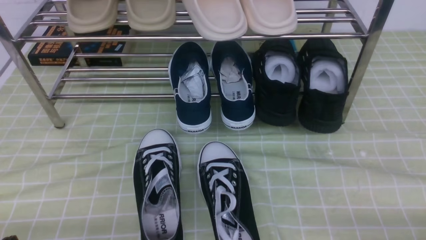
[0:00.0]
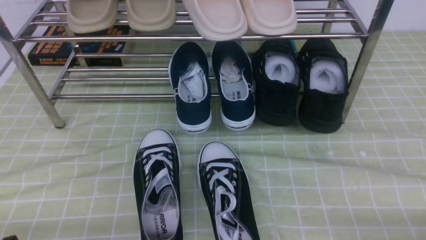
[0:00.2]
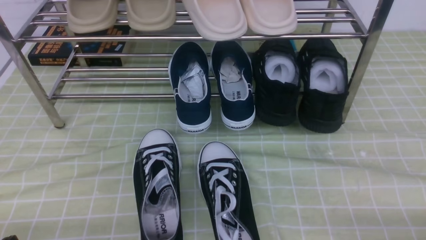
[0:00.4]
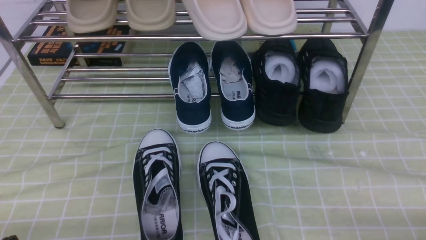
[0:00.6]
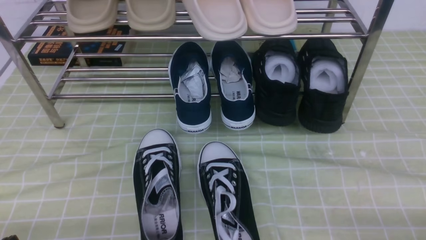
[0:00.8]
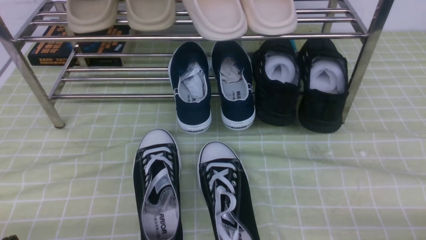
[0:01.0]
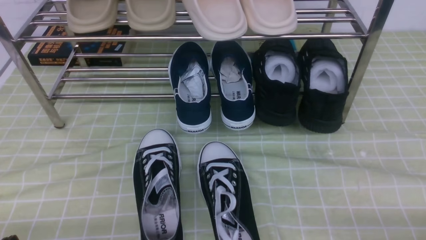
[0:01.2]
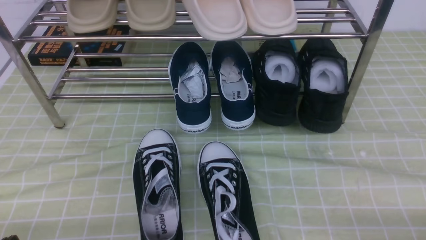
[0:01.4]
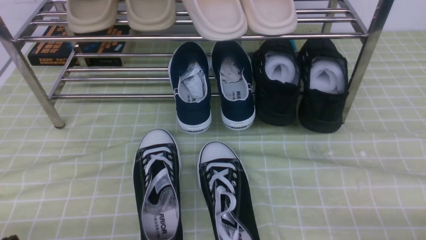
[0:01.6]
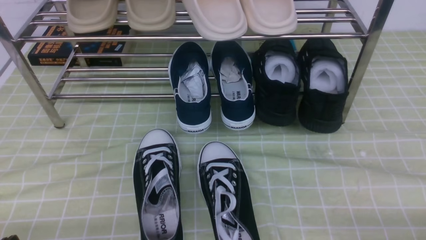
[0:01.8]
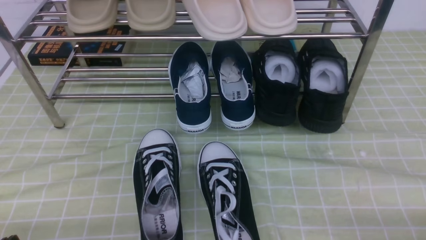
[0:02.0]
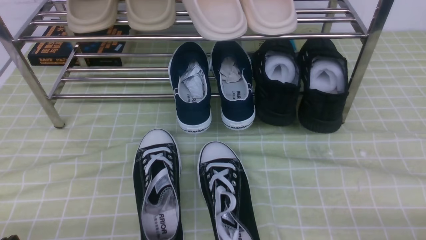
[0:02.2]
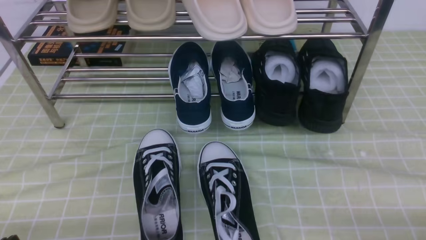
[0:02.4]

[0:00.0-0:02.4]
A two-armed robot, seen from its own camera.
0:00.0 to 0:02.4: Neither gripper changes place.

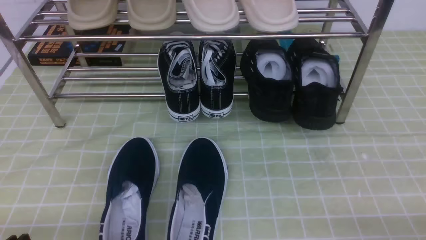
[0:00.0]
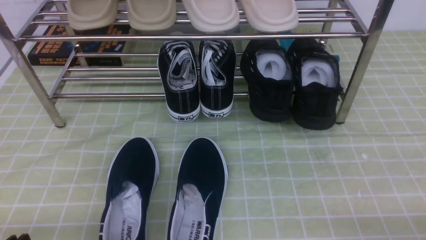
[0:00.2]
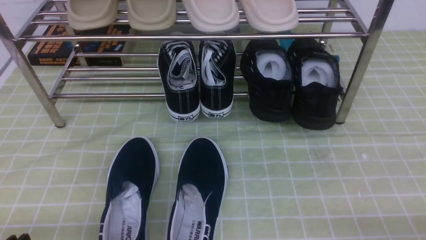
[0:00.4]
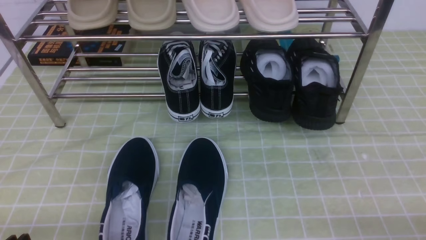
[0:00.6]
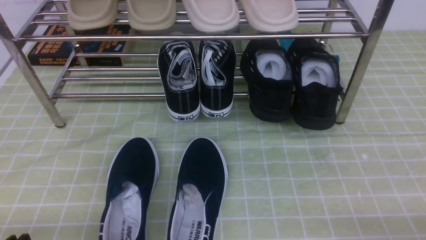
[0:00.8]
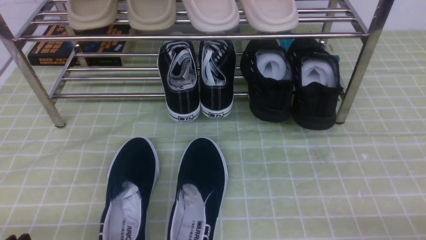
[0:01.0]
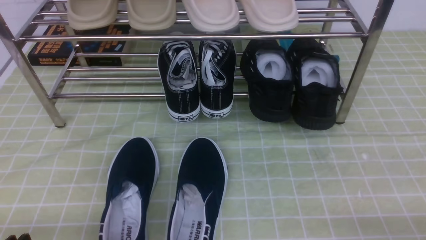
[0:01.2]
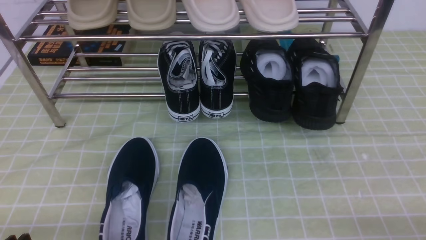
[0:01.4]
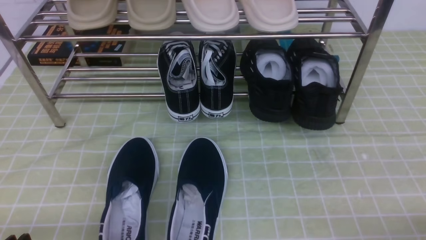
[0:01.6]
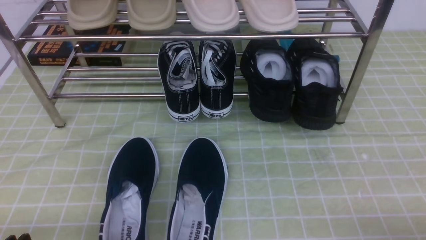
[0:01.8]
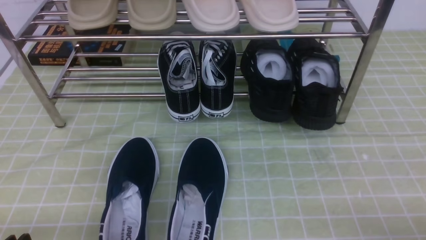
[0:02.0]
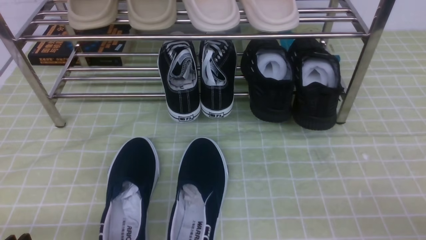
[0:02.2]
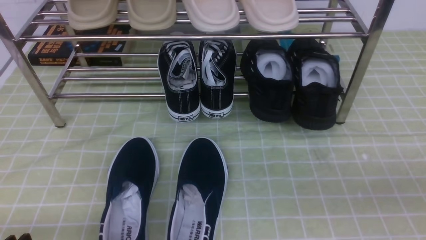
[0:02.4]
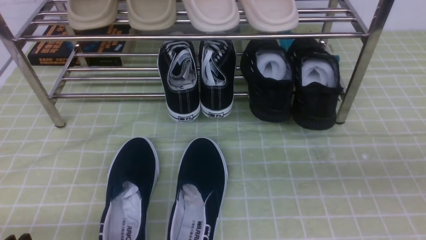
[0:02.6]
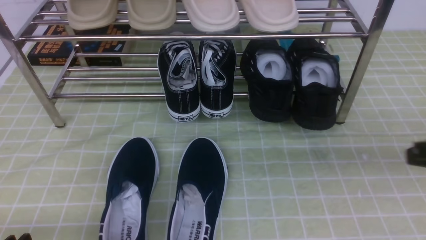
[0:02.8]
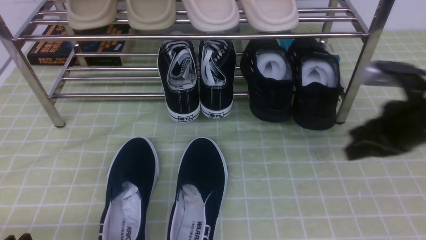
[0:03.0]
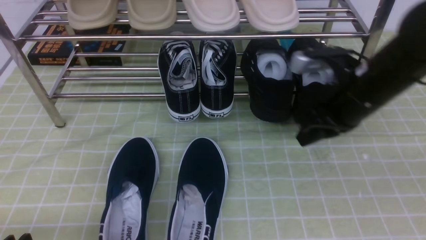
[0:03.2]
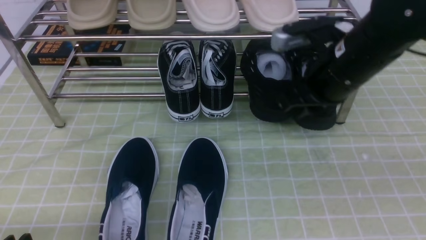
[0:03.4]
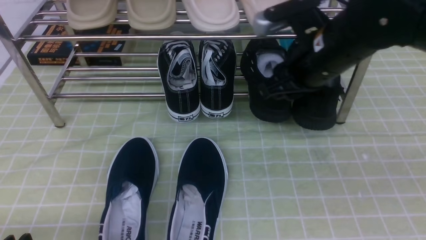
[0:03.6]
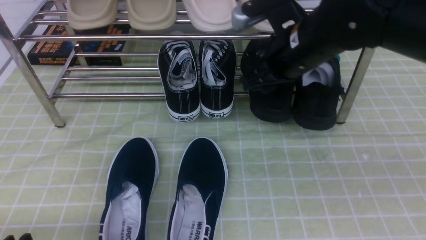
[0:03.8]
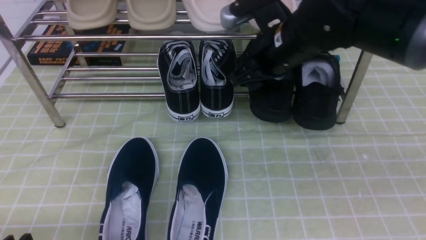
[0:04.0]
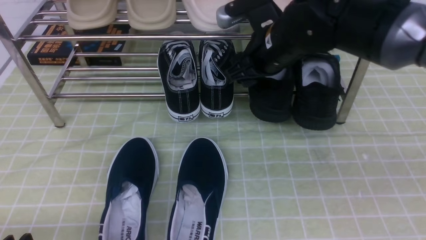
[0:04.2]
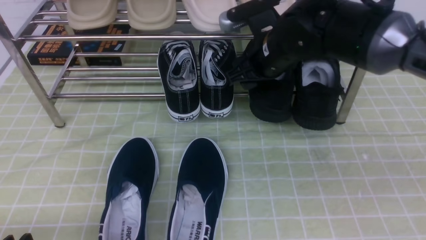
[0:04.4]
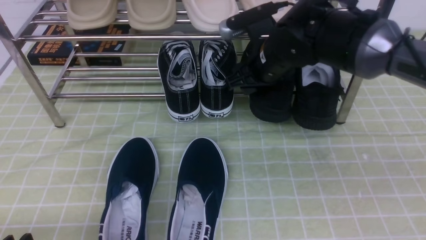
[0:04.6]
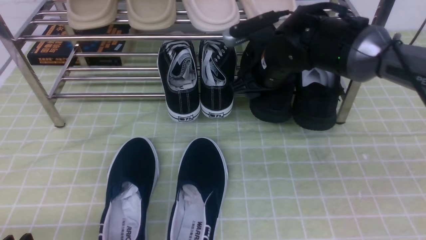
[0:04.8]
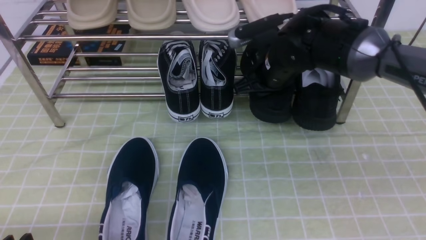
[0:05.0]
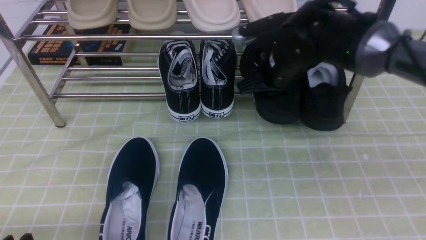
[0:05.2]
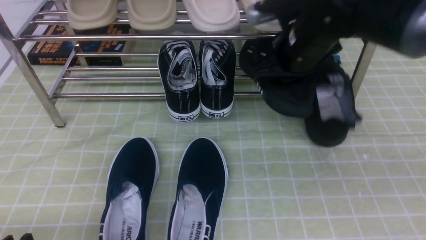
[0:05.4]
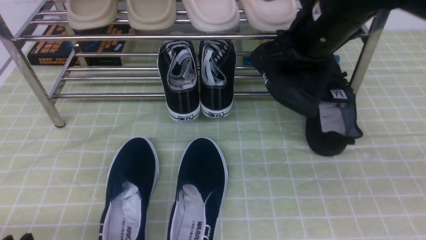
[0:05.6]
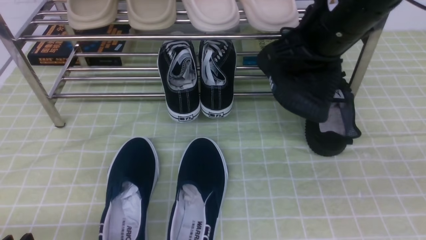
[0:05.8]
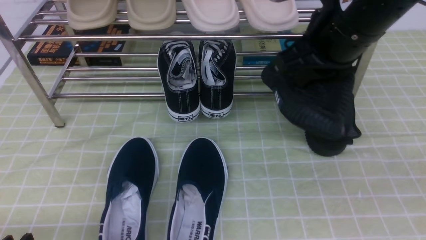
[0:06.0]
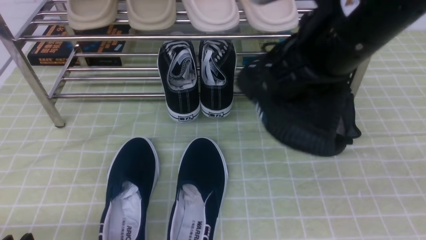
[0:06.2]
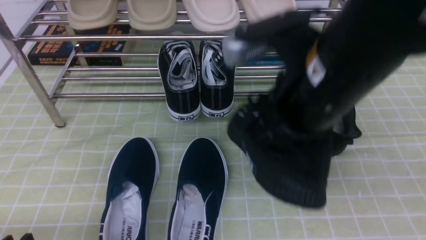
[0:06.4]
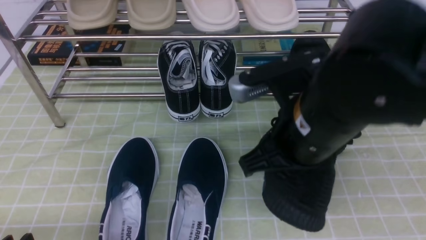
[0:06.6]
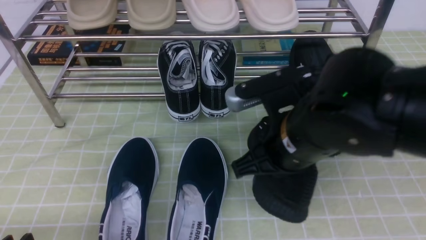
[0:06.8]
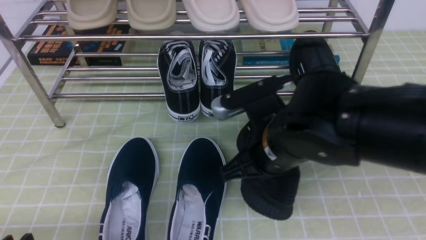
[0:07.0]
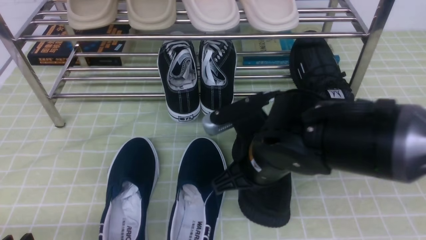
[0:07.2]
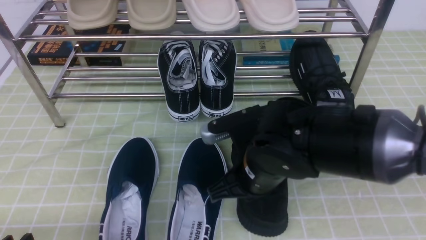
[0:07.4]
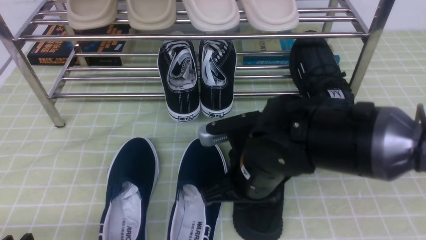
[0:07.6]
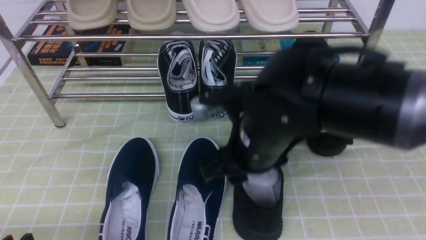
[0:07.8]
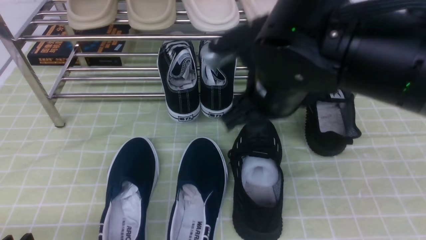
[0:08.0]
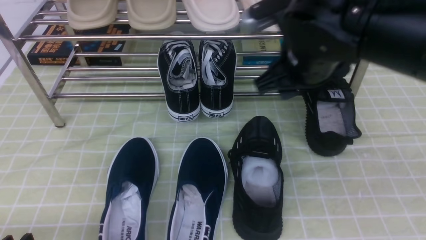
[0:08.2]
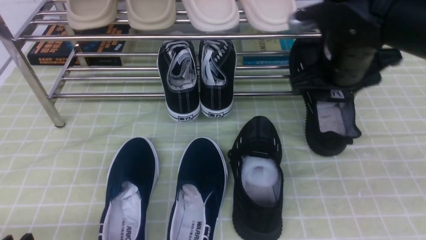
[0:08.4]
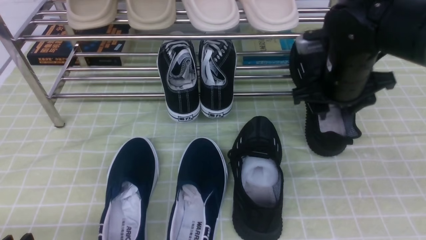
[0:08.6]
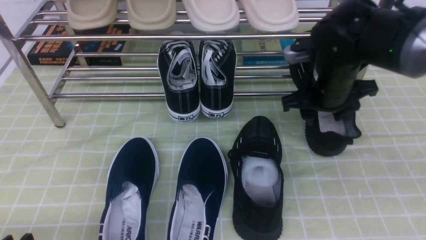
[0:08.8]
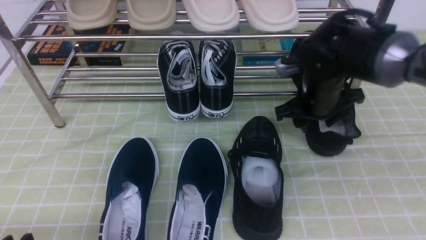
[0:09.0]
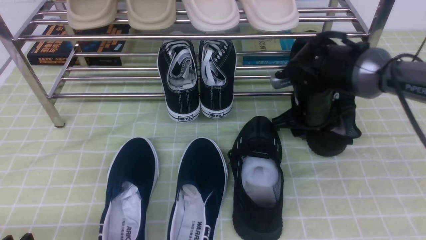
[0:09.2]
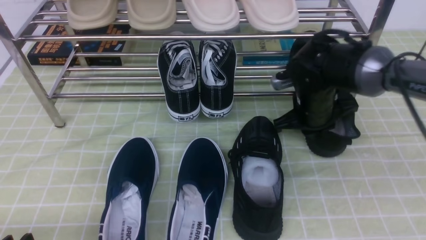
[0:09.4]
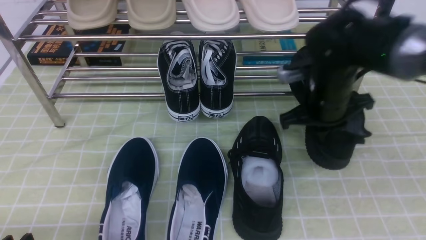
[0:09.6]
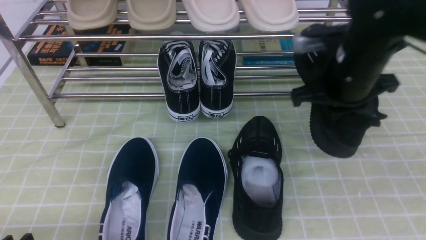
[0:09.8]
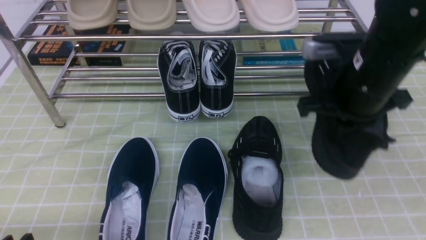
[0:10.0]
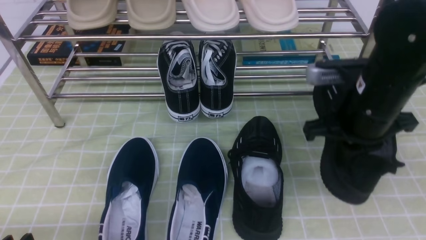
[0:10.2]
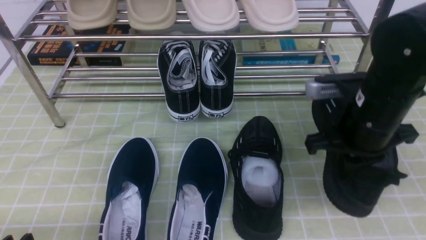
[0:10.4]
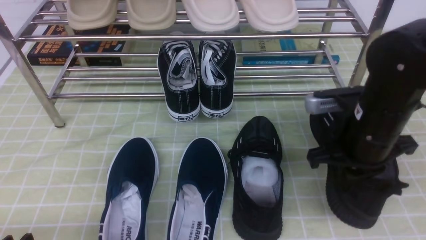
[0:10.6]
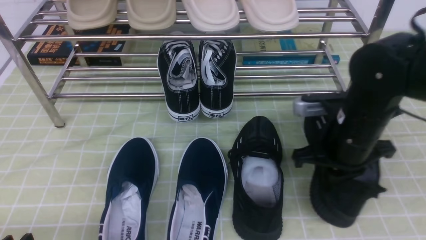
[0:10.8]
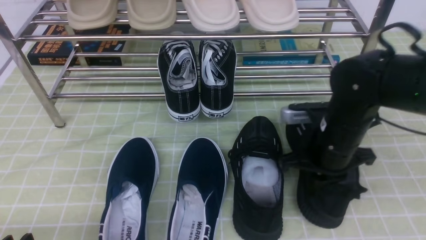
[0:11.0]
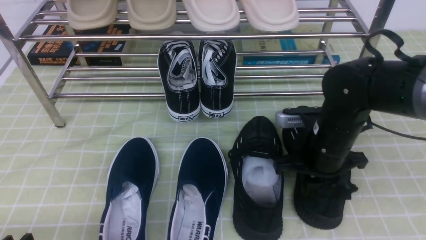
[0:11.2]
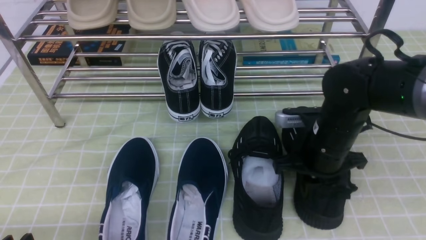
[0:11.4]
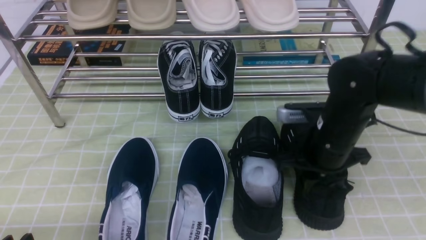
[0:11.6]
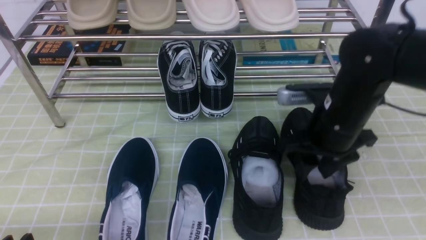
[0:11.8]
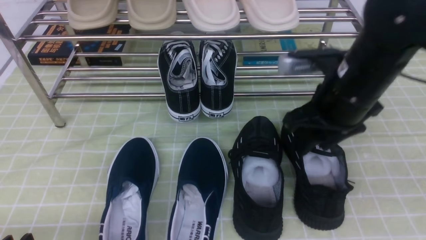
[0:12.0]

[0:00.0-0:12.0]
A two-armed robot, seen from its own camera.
Step, 0:00.0 to 0:05.0: use the right arm to clamp a shoe on the right side of the shoe rack.
Step, 0:05.2 to 0:07.8: use the right arm to take out the clamped shoe from the shoe rack and put it down.
Step, 0:08.0 to 0:09.4: use the right arm to clamp a shoe on the right side of the shoe rack.
Step, 0:09.6 to 0:11.6: use the right arm to take out the clamped shoe from the shoe rack and put it down.
0:01.6 to 0:03.0: The right gripper is displaced forward and upward by about 25 cm, and closes its fingers.
0:03.0 to 0:04.4: The right gripper heads to the left and forward, covering approximately 20 cm, and opens.
0:04.4 to 0:06.0: The right gripper moves backward and upward, some 15 cm, and closes.
0:06.0 to 0:07.6: The right gripper goes roughly 15 cm downward and to the left, and opens.
0:07.6 to 0:09.0: The right gripper shifts some 20 cm forward and to the right, and opens its fingers.
0:09.0 to 0:10.4: The right gripper travels backward and upward by roughly 10 cm, and closes its fingers.
0:10.4 to 0:12.0: The right gripper opens up.

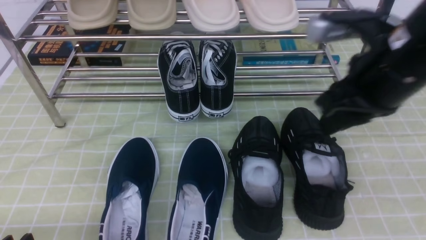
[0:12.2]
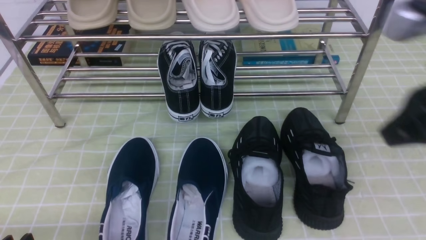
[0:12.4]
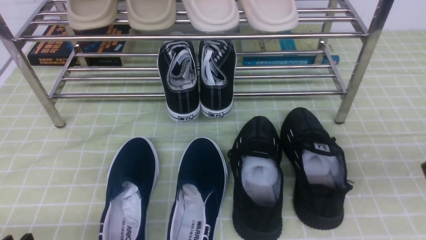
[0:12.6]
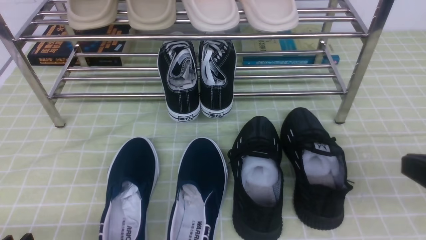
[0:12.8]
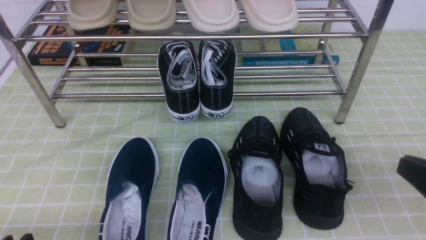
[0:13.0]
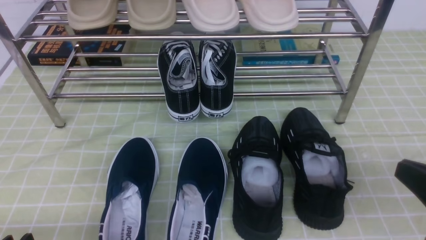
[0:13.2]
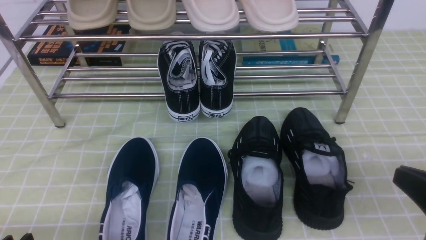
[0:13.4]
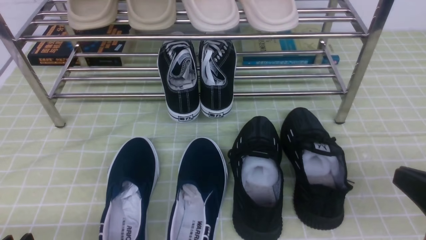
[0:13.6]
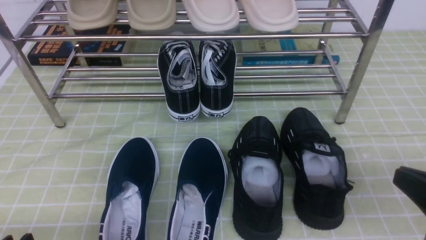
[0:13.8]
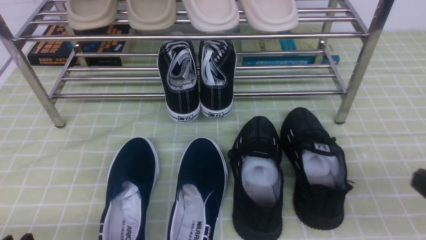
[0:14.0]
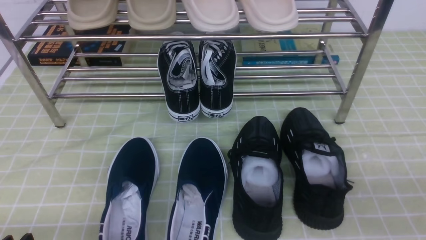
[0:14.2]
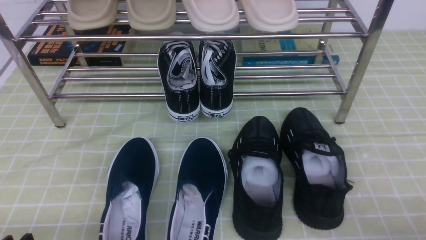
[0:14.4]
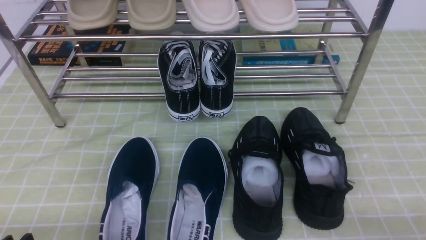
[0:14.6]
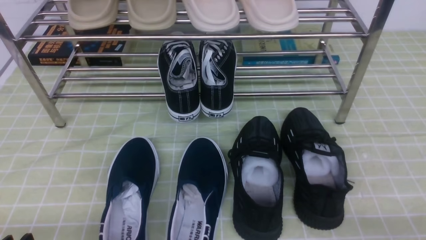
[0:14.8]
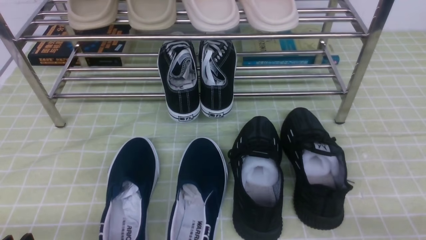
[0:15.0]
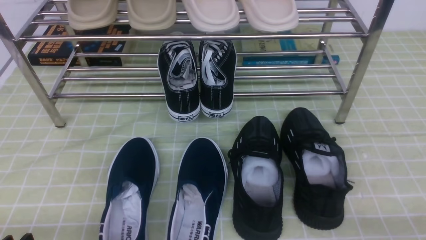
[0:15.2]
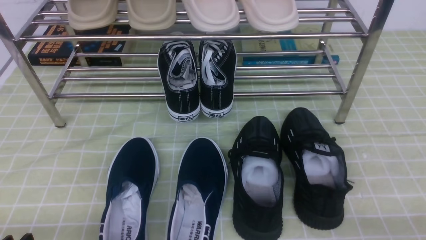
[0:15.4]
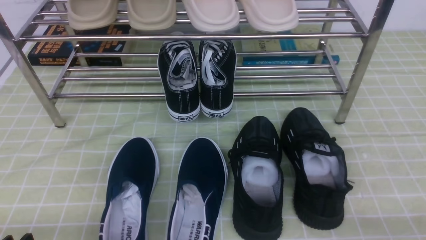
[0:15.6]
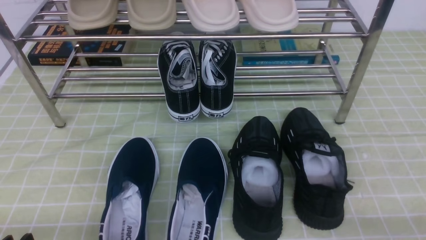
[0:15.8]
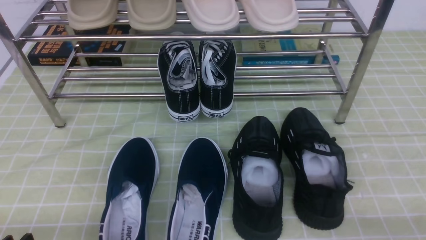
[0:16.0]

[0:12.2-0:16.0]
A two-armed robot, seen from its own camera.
0:12.2 to 0:13.4: The right gripper heads backward, downward and to the right, covering roughly 20 cm, and closes.
0:13.4 to 0:14.8: The right gripper shifts roughly 10 cm downward and to the right.
0:14.8 to 0:16.0: Both grippers stay about where they are.
